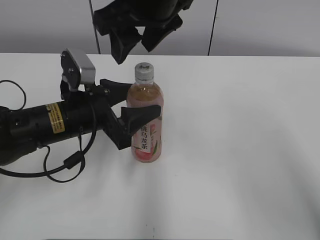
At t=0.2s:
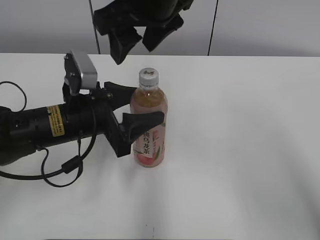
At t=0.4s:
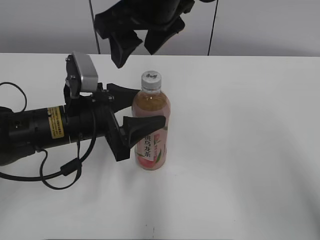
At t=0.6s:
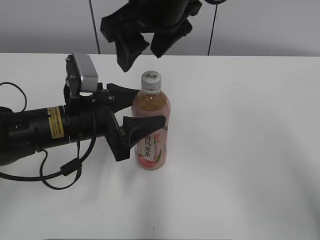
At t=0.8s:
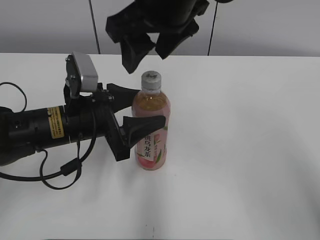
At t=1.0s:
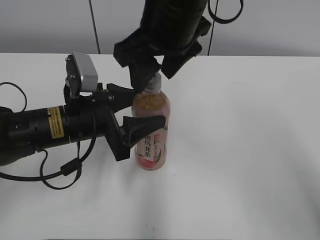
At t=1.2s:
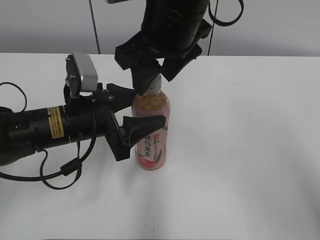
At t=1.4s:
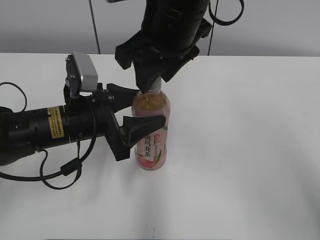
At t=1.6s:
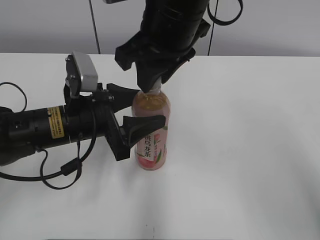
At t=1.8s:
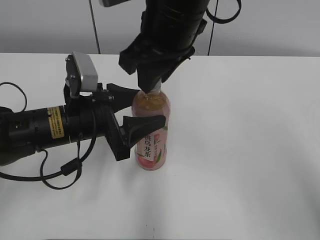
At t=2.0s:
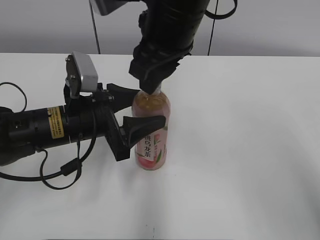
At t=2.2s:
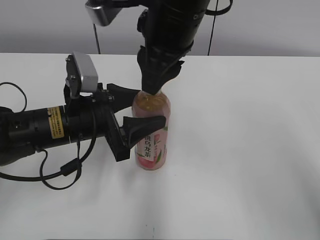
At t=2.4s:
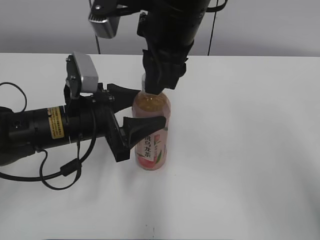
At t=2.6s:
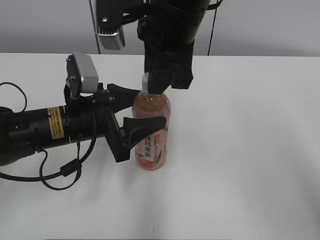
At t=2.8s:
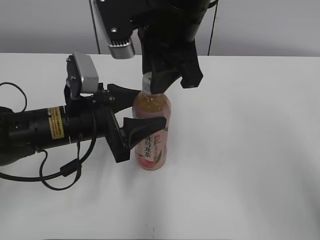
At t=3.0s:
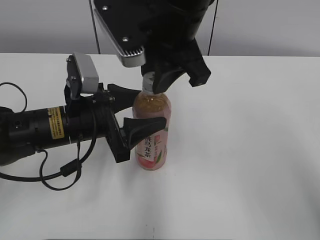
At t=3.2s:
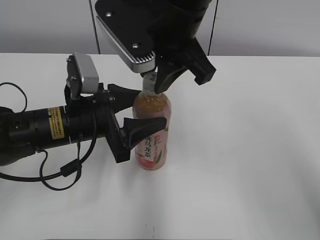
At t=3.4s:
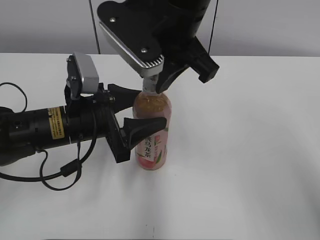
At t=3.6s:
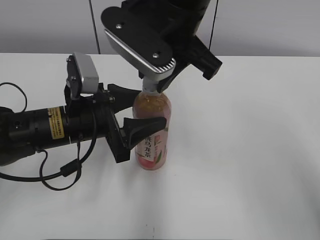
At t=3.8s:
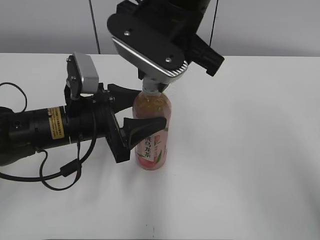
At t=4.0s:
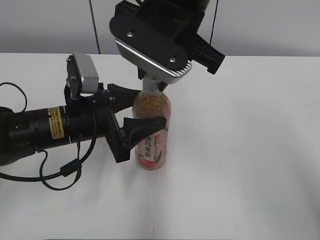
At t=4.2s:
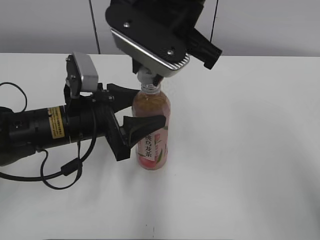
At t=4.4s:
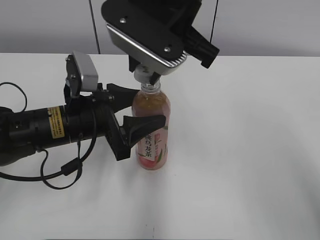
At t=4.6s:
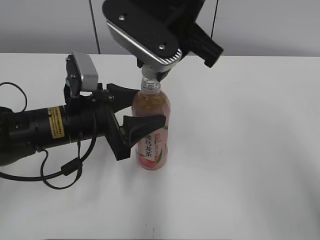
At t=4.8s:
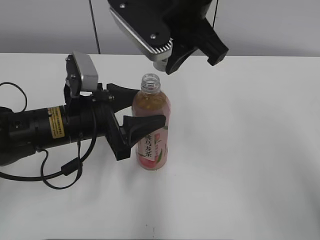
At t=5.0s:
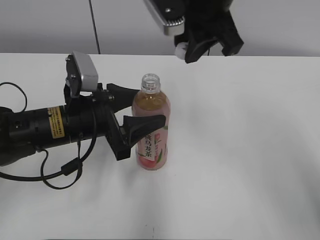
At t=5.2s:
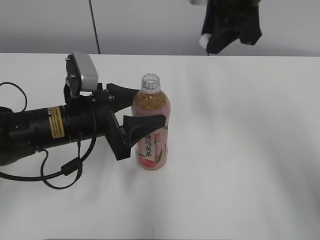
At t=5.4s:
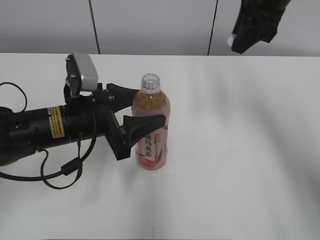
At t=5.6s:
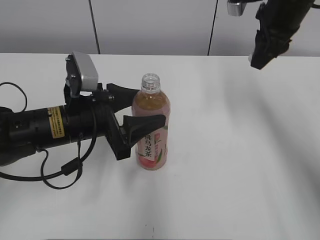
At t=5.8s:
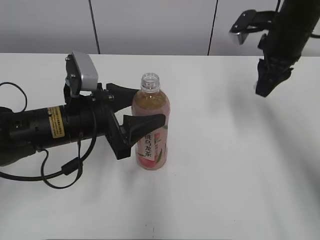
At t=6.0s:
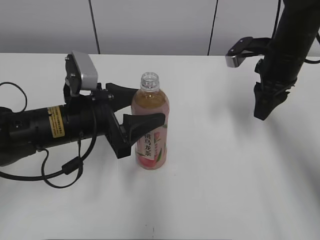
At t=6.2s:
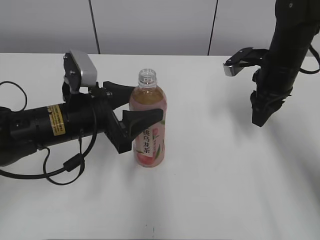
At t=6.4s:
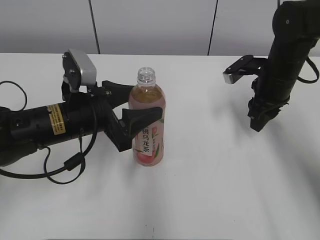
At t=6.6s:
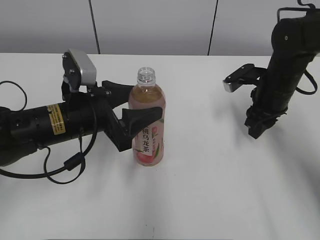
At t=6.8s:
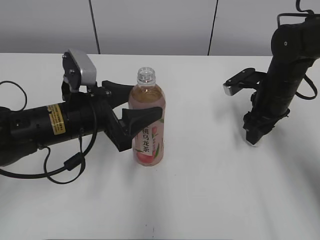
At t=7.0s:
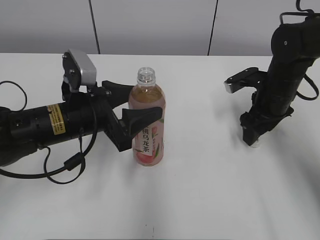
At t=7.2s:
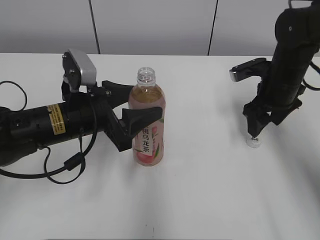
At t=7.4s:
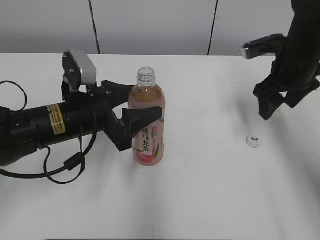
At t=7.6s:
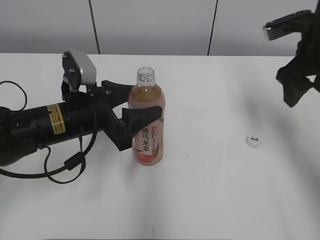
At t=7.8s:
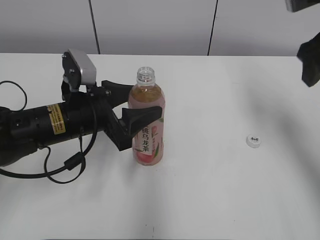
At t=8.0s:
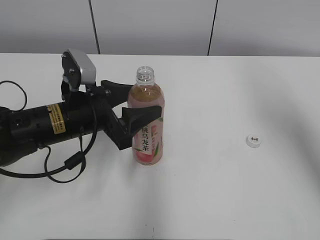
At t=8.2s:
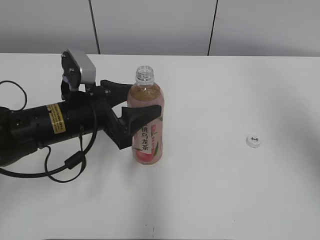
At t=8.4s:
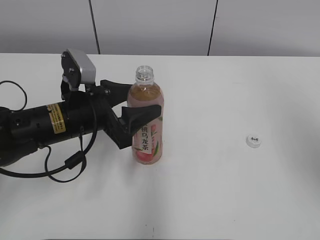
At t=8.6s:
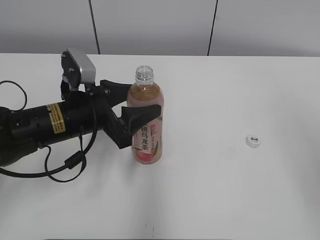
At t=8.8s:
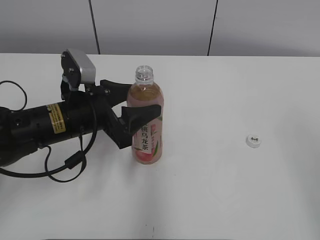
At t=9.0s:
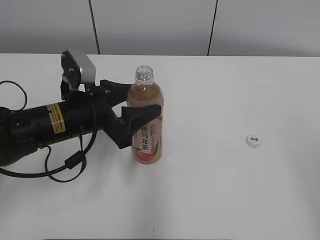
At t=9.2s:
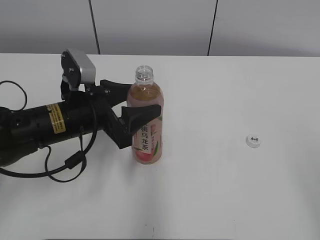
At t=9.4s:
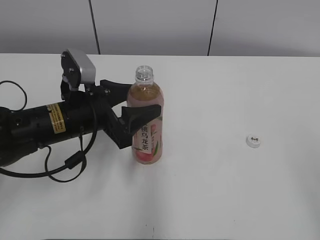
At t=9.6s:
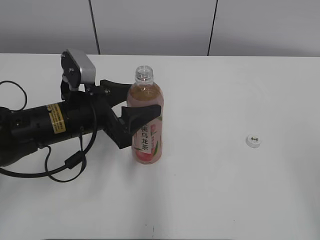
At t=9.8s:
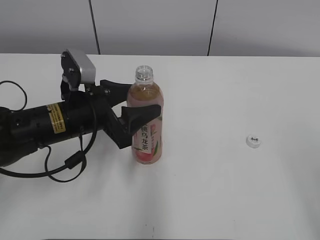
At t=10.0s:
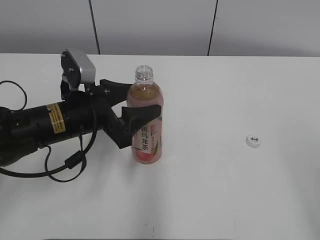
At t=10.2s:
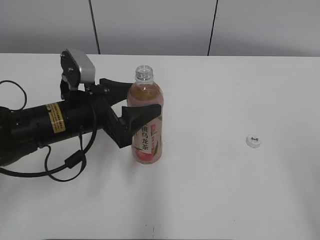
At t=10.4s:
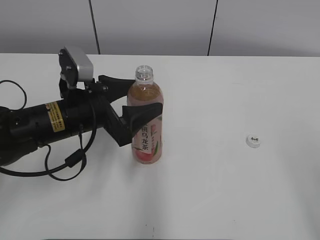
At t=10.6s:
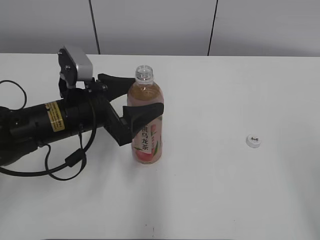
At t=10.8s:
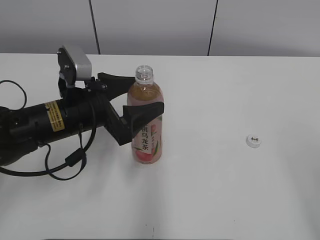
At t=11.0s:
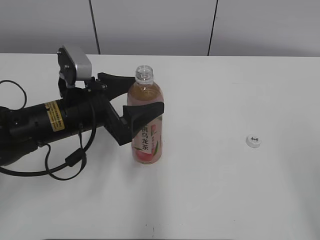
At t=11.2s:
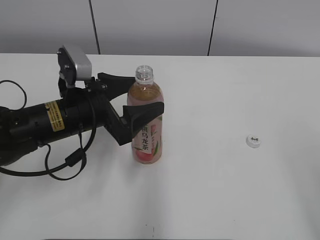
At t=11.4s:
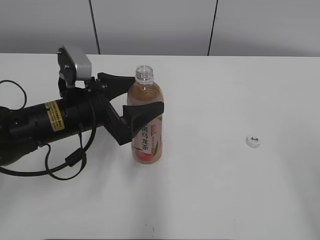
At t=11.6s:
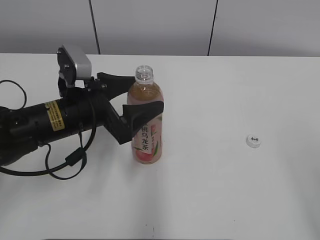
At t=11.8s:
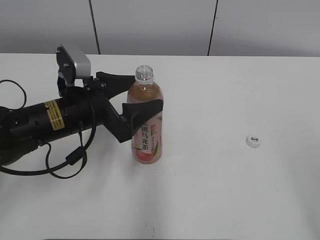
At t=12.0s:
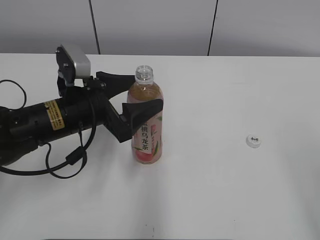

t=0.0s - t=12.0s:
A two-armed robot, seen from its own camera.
Step, t=4.2s - t=6.8s: Place the bottle cap on the right.
t=0.0s - t=1.6s: The right gripper closes up.
t=4.4s - t=6.0s: The right gripper travels to the right, downward and forward by about 25 cm.
t=6.0s - t=7.6s: The right gripper ends up about 5 cm from where it was, and opens its fingers.
t=7.6s - t=9.0s: The right gripper travels backward by roughly 30 cm.
t=9.0s - t=10.4s: The grippers move only a little.
t=10.4s - t=12.0s: Both grippers stay put.

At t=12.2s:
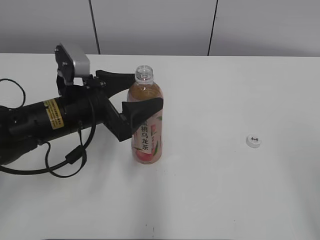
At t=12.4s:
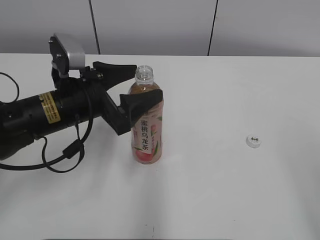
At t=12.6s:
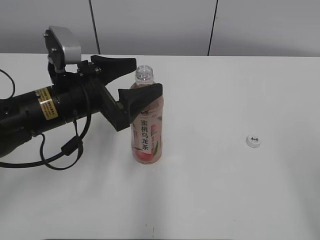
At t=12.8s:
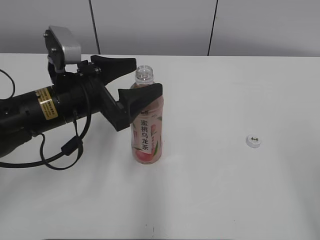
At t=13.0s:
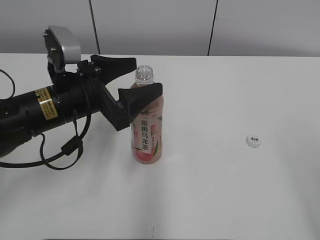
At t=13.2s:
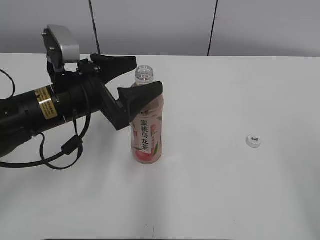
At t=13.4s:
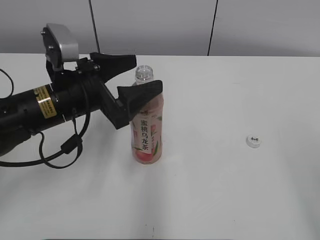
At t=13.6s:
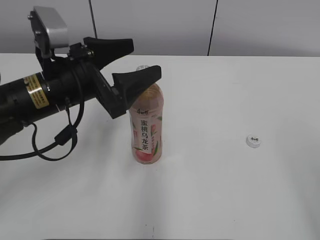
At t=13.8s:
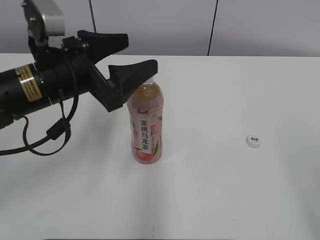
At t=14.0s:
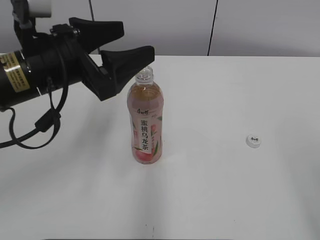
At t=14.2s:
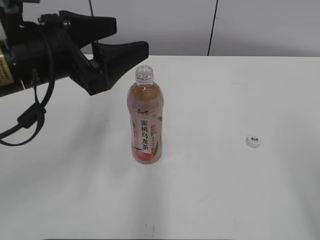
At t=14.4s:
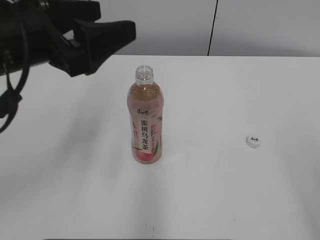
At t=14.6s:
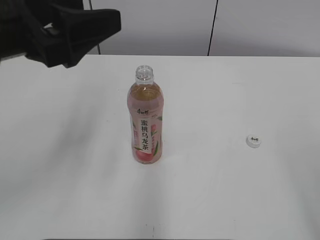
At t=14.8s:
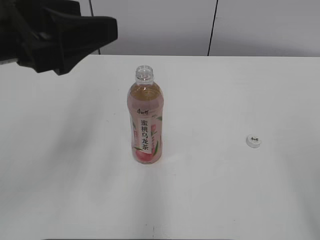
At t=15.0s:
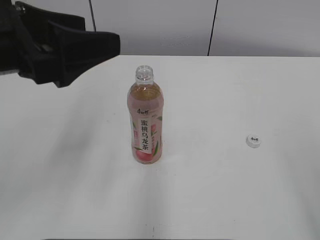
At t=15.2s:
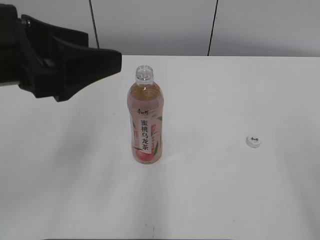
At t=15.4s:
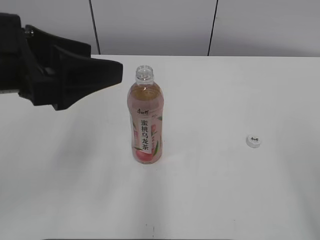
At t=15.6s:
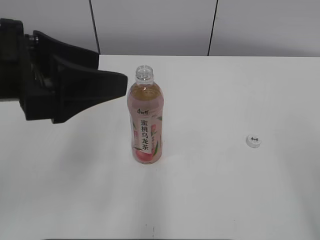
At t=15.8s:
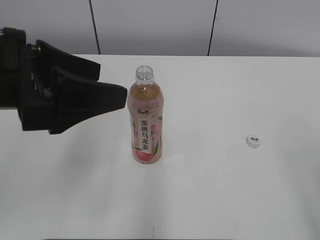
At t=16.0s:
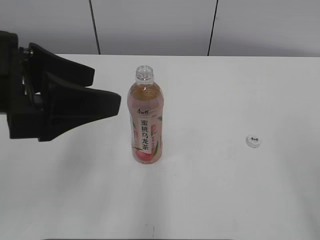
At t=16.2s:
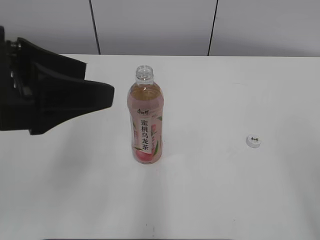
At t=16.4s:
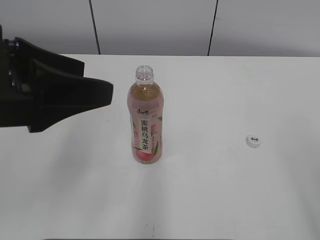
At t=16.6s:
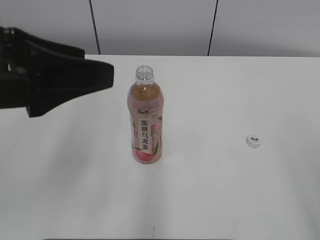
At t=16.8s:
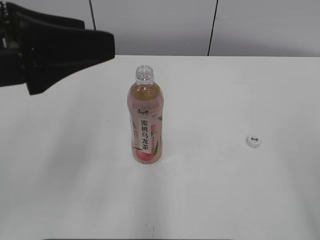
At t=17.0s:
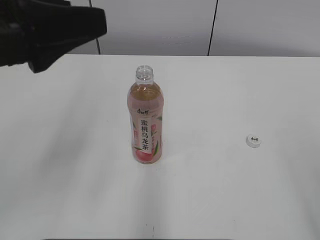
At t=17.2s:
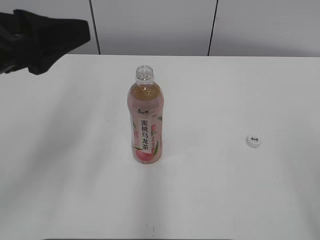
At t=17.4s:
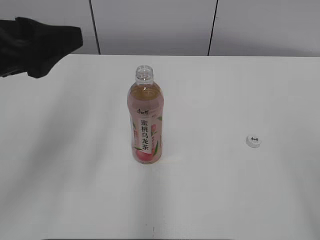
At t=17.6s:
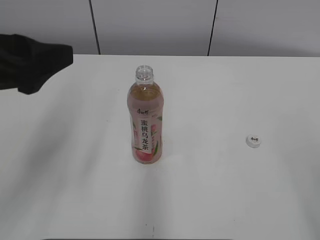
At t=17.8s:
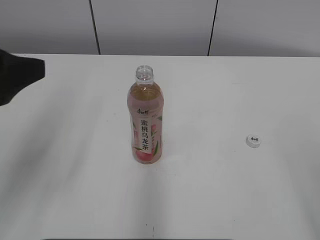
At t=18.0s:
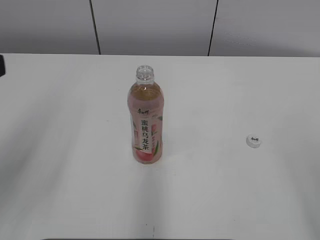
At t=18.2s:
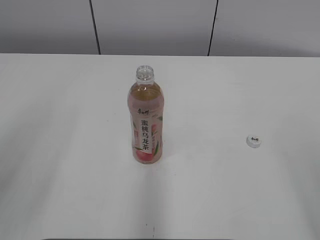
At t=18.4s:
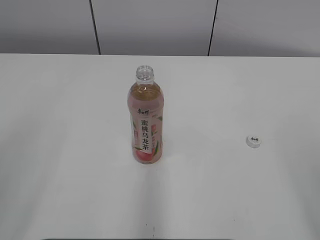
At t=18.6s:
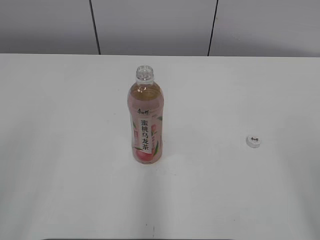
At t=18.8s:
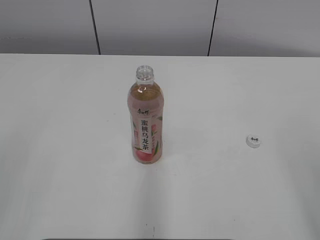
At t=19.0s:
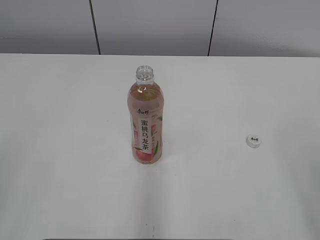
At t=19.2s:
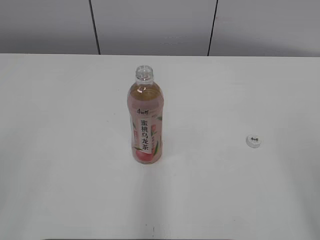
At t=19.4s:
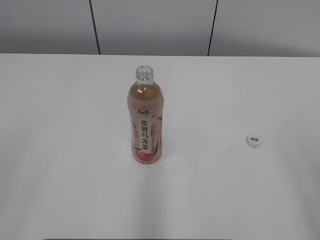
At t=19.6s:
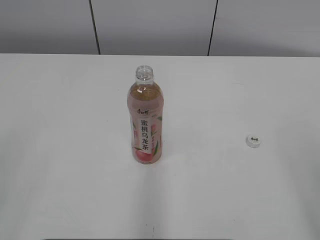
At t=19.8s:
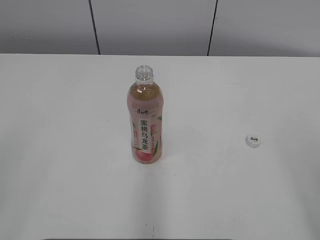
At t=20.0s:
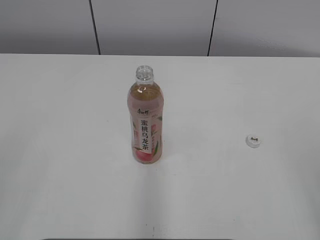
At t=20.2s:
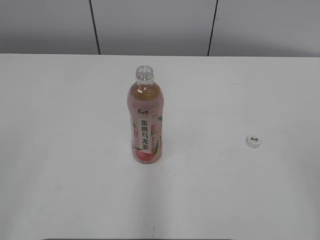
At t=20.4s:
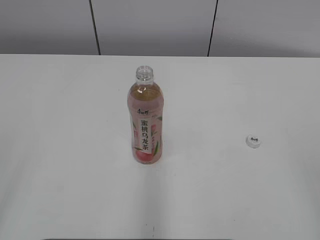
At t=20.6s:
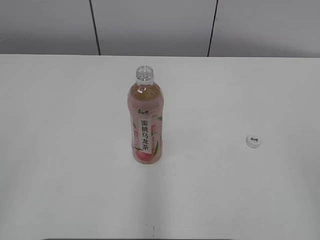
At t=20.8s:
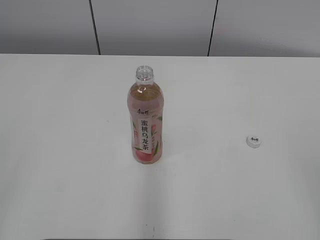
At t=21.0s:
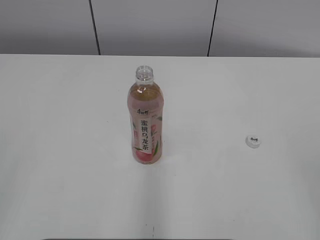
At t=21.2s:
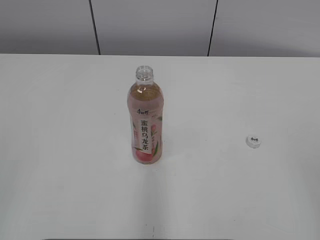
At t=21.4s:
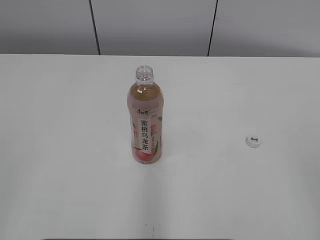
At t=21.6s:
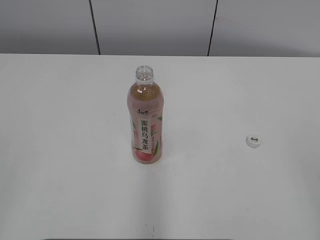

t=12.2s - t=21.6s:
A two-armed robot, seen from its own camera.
t=12.2s - t=13.8s: The left gripper goes roughly 5 cm upward.
t=13.8s - t=15.4s: The left gripper moves upward and backward, roughly 10 cm.
t=15.4s - t=17.0s: The grippers move only a little.
t=17.0s - t=18.4s: The left gripper travels backward and to the left by approximately 15 cm.
